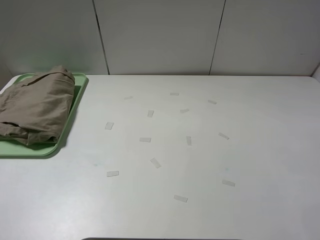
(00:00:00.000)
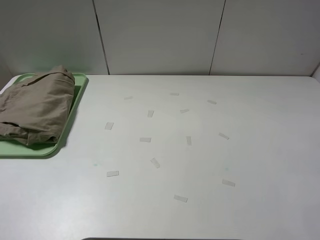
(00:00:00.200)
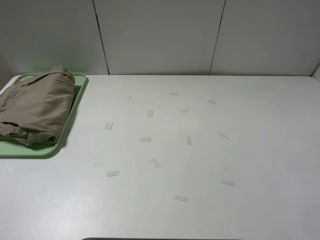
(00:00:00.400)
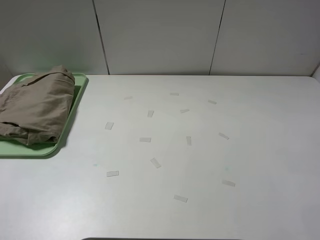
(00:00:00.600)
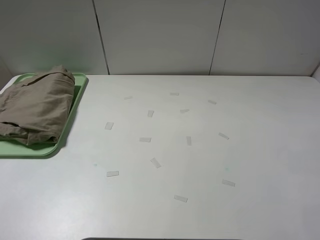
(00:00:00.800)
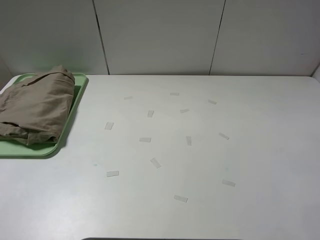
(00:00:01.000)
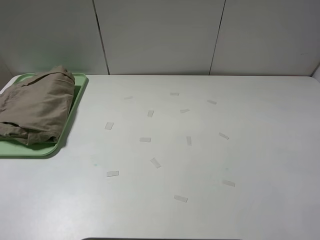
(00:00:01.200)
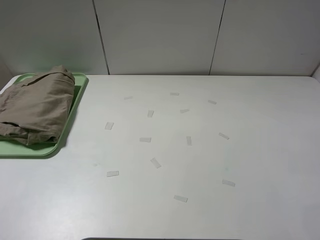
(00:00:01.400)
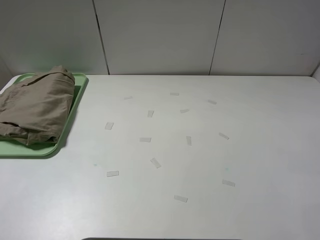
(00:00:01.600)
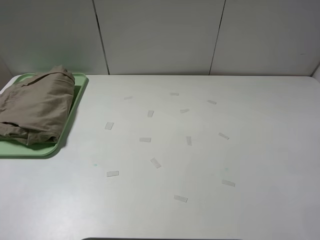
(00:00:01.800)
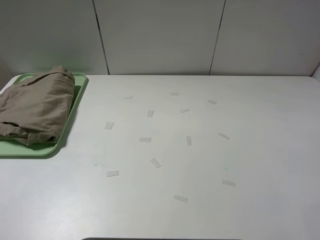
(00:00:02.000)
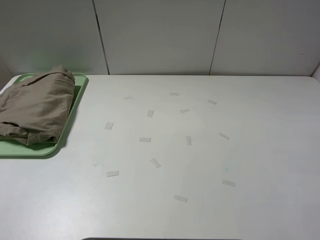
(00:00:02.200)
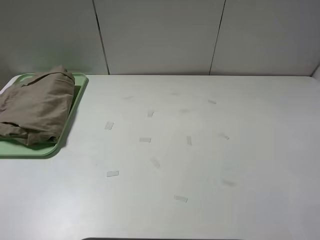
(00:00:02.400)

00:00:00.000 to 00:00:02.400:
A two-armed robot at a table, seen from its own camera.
Task of the whole recording: fold the khaki jeans in half with two grippers, then fold them in half again, and use the left claw to place the folded fold khaki jeans on the tray.
00:00:01.200 to 00:00:02.400: The two grippers keep their place.
